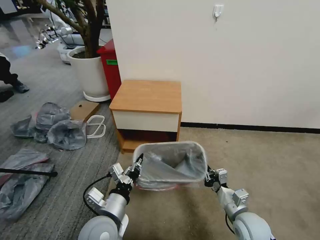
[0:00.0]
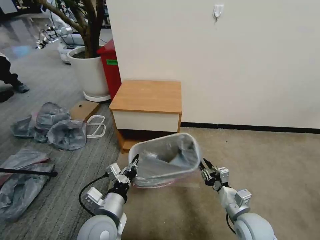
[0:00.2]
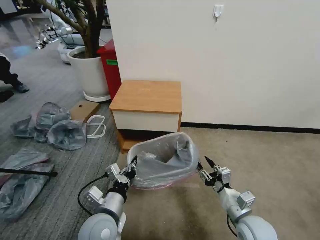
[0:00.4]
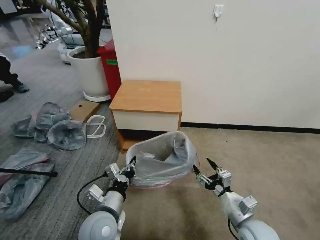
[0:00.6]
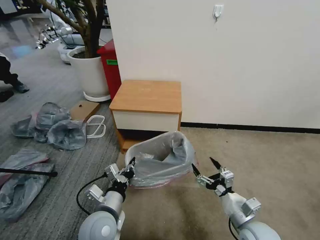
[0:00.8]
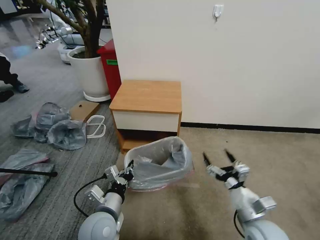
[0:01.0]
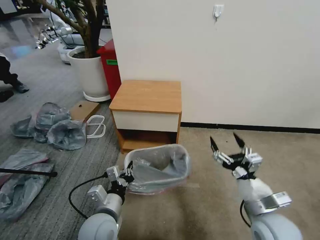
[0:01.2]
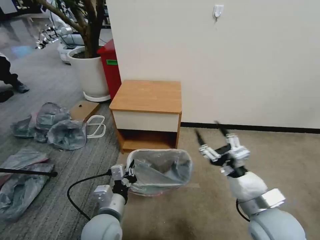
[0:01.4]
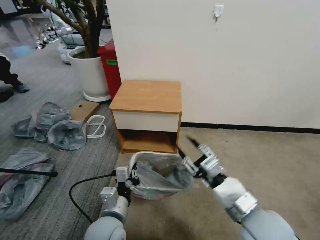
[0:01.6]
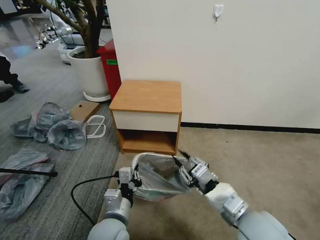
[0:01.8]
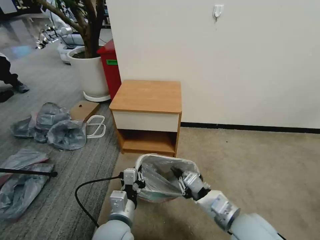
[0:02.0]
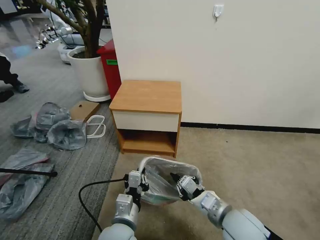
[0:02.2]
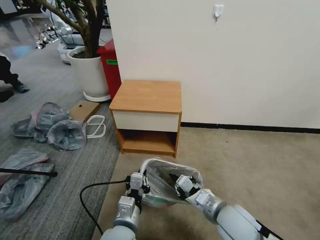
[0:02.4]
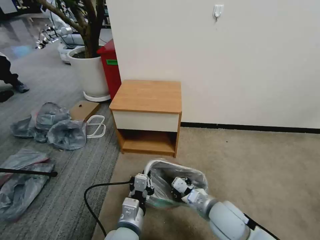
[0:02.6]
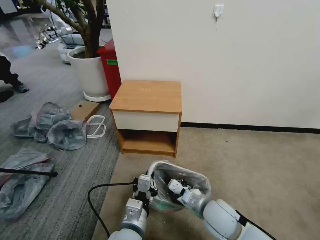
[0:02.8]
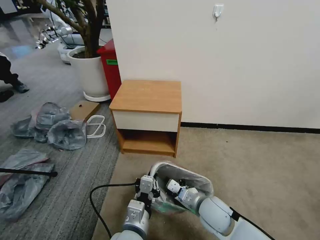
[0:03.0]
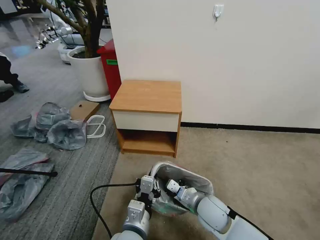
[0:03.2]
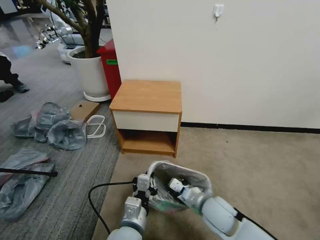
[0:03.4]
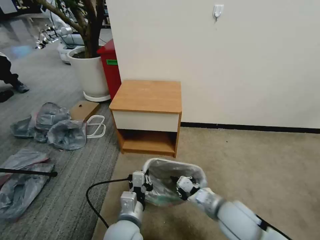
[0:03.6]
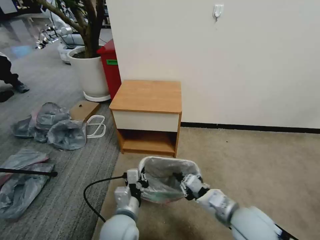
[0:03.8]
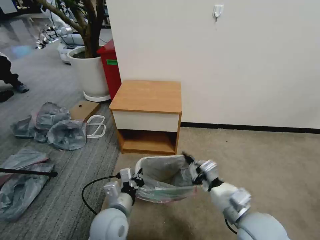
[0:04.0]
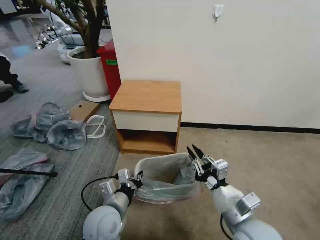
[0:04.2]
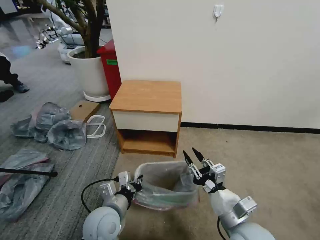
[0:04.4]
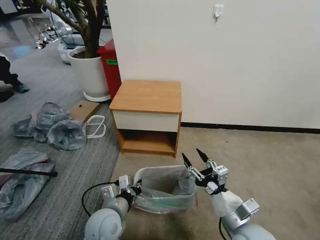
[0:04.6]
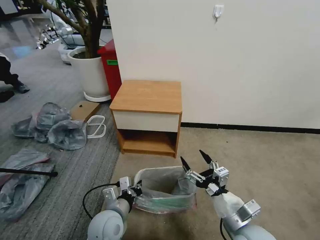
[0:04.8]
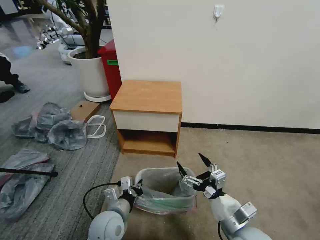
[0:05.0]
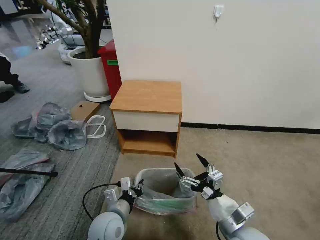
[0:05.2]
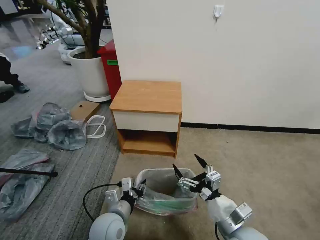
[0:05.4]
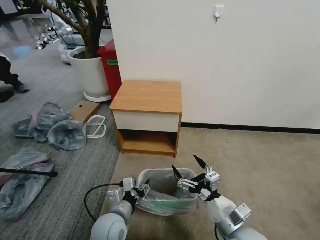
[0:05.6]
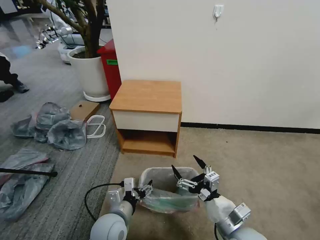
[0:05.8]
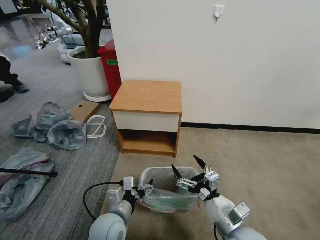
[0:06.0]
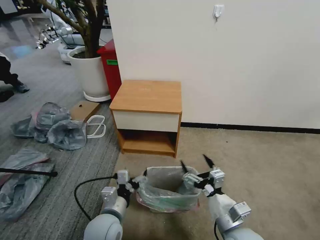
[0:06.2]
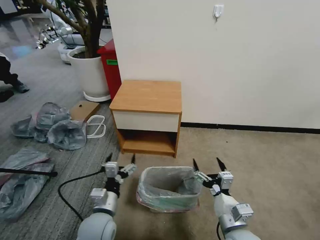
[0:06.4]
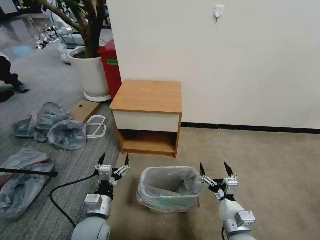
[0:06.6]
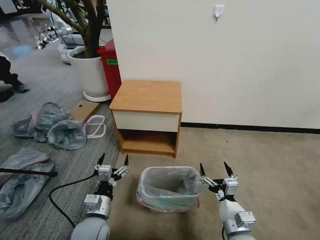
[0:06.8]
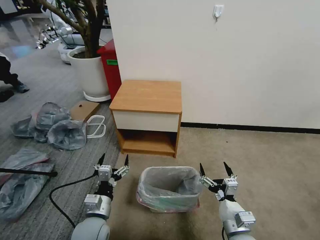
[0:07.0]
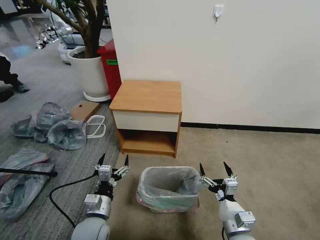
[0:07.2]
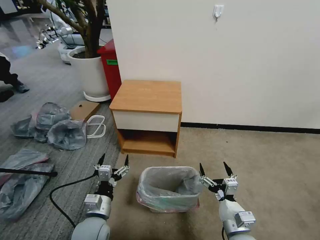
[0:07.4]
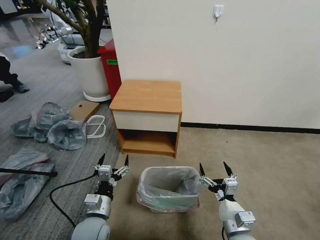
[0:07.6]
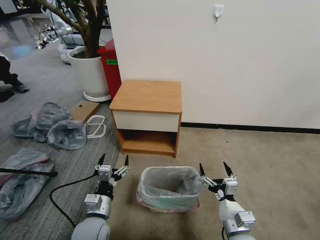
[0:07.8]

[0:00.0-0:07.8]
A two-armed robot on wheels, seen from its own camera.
Task of the whole recording: Pick up the garbage bag from the table and place it over the trash can.
0:00.0 to 0:01.6: The right gripper shifts approximately 15 cm upward, and opens.
0:01.6 to 0:03.2: The right gripper goes some 20 cm downward, forward and to the left, and closes up. Meanwhile the left gripper shifts roughly 5 cm to the right.
0:03.2 to 0:04.6: The left gripper heads to the left and forward, covering about 10 cm. Meanwhile the right gripper is displaced backward, upward and to the right by roughly 15 cm, and opens up.
0:04.6 to 0:06.2: The right gripper opens up, while the left gripper opens its fingers.
0:06.2 to 0:07.8: The left gripper shifts by approximately 5 cm. Meanwhile the right gripper moves downward, roughly 5 cm.

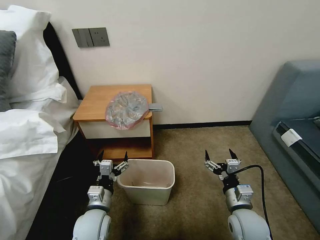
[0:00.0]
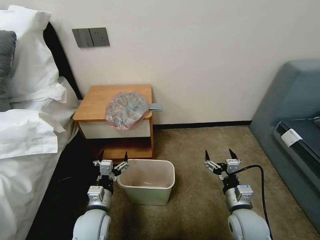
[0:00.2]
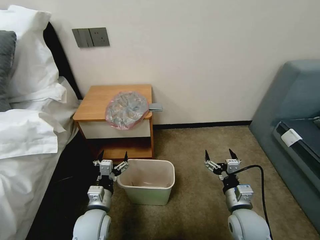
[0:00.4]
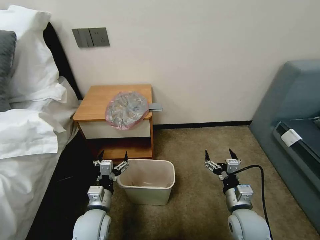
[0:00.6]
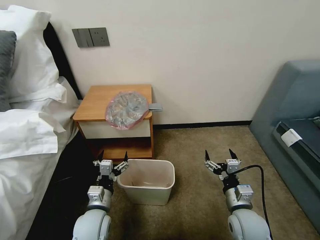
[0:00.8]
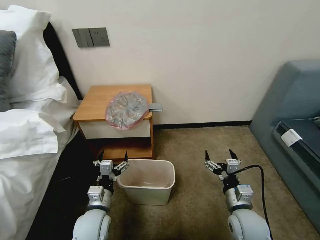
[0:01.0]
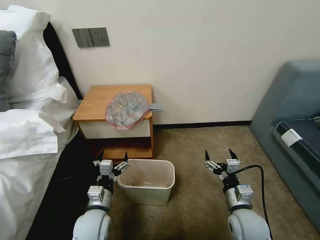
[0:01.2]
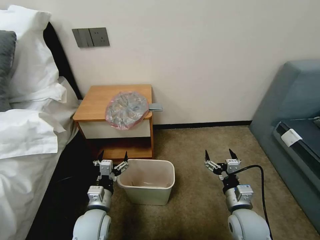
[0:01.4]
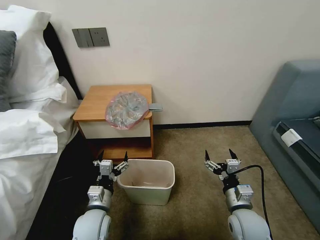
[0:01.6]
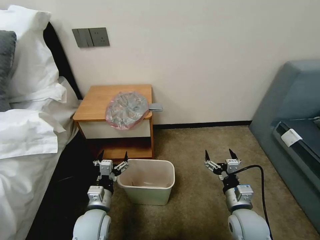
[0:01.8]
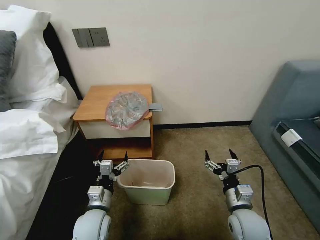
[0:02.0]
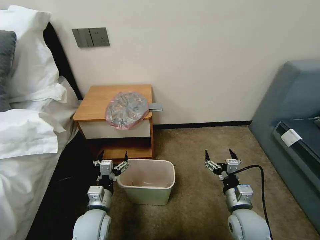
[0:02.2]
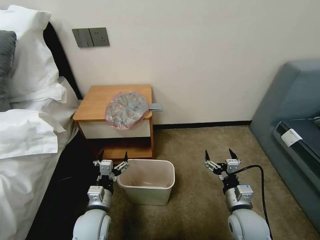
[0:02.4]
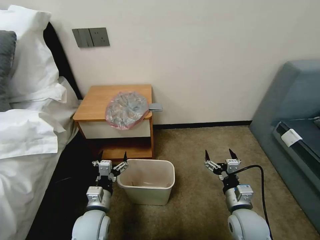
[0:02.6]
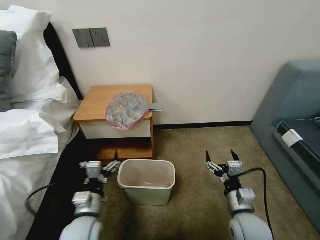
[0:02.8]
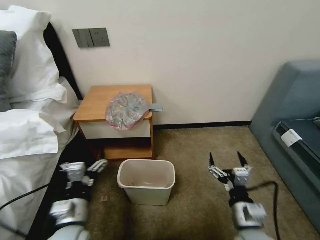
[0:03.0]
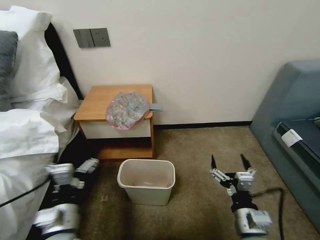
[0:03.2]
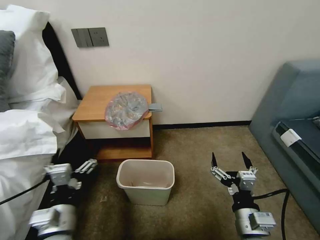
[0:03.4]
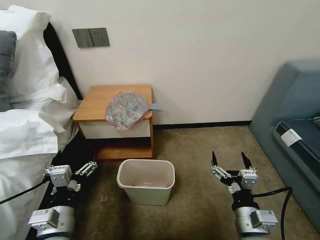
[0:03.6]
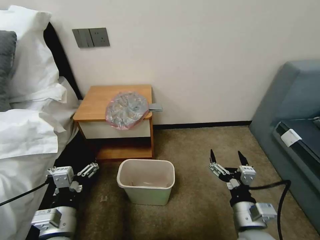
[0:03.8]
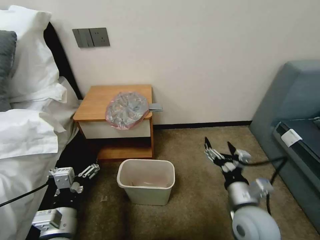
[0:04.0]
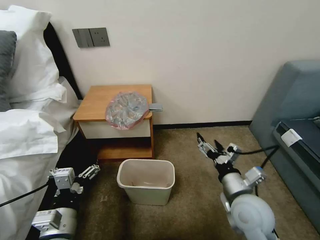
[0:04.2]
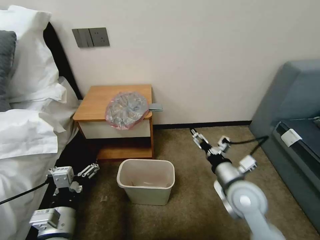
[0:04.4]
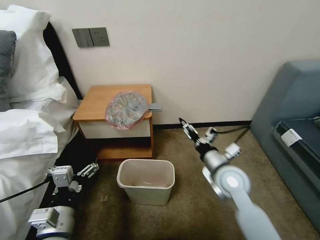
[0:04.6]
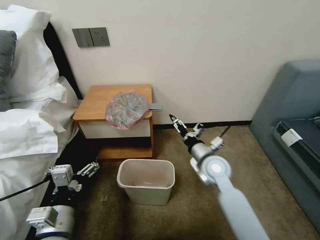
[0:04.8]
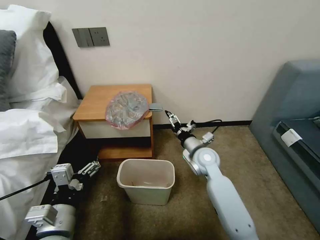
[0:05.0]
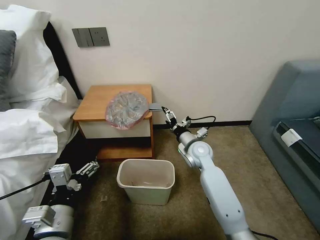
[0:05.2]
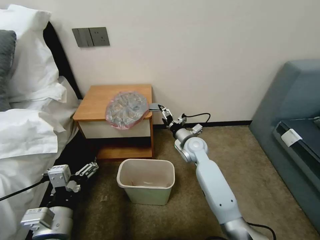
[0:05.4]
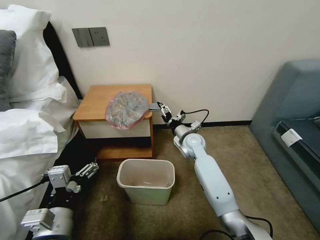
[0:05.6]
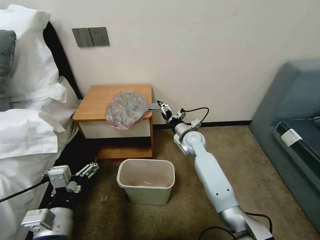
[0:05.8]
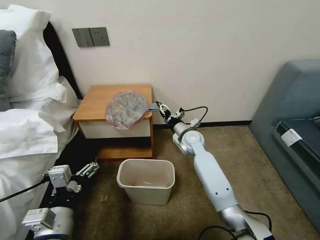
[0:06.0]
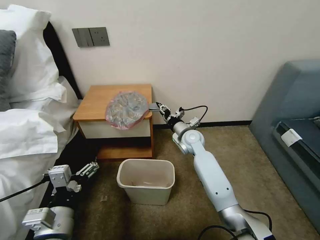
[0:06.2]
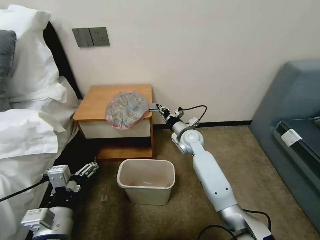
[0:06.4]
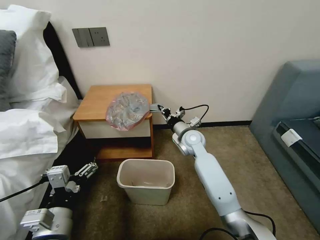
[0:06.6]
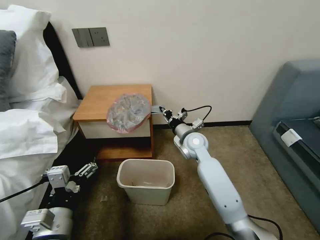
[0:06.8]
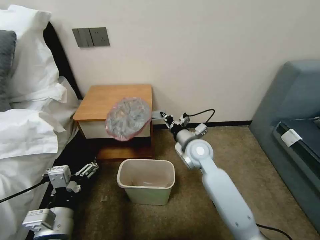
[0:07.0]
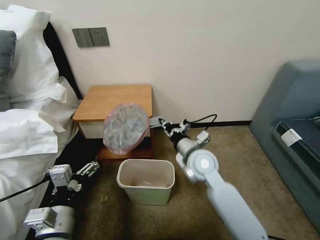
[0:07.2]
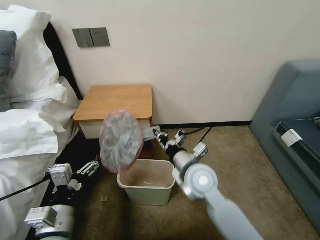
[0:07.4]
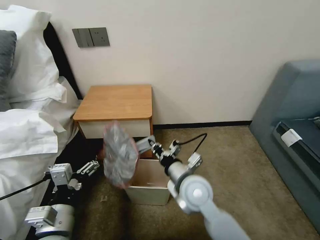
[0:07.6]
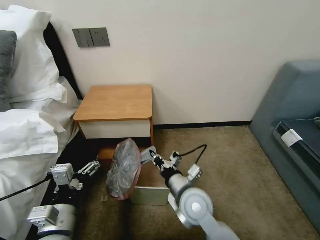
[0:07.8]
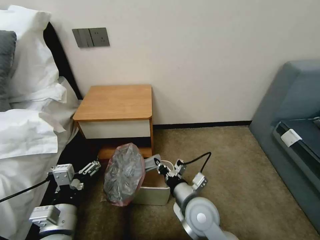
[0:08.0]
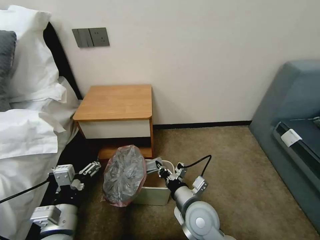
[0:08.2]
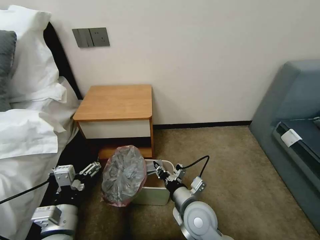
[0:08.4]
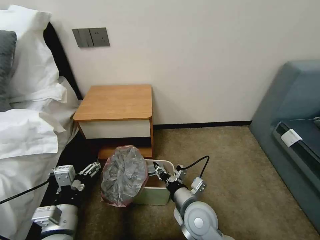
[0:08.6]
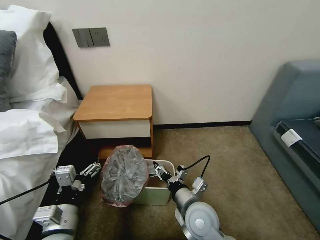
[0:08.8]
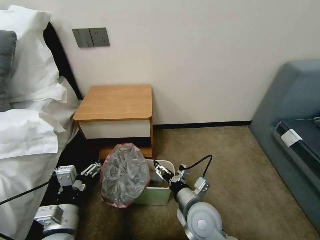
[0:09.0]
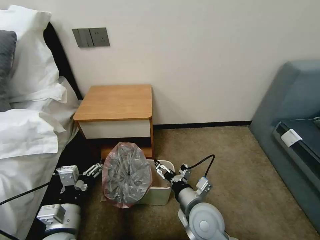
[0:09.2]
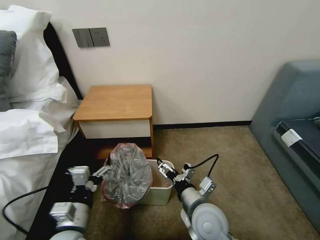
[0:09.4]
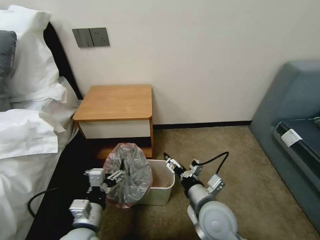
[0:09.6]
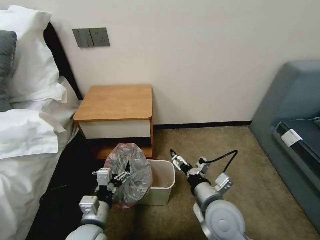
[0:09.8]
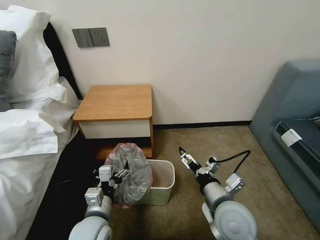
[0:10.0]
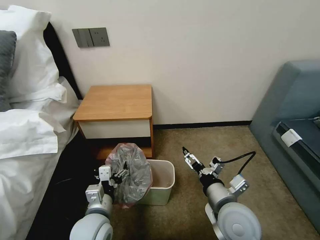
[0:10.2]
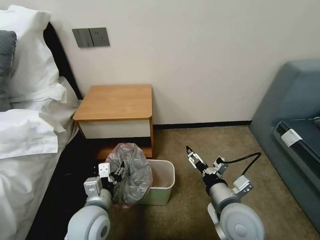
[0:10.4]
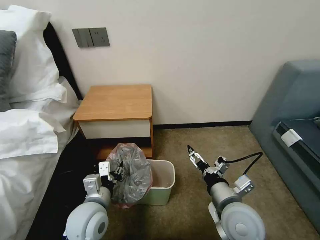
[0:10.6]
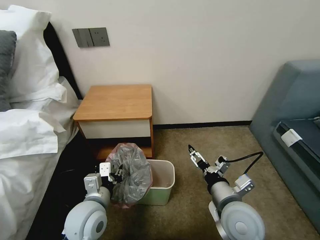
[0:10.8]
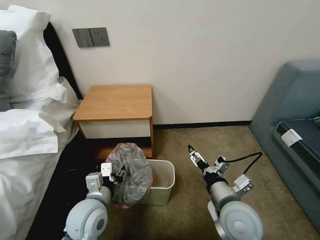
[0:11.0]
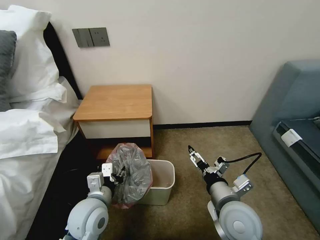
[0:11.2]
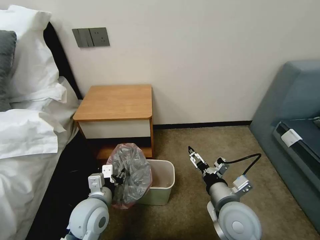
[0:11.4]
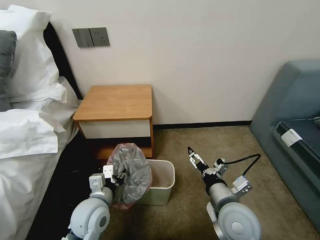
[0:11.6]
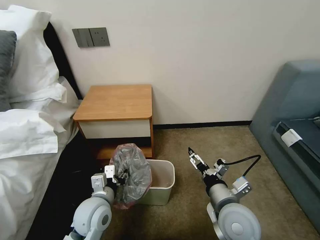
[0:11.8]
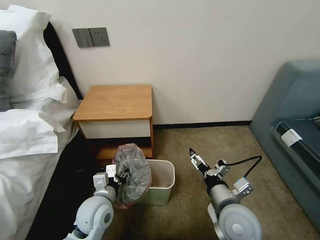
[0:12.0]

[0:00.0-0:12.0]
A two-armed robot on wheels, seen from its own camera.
Task of the whole recording: Pick up the garbage bag from the table and place it over the trash can.
0:01.6 to 0:03.0: The left gripper changes place by some 5 cm.
0:03.0 to 0:04.4: The left gripper moves upward and backward, approximately 5 cm; the right gripper is displaced upward by roughly 10 cm.
0:04.4 to 0:06.0: The right gripper heads forward, covering some 25 cm.
0:06.0 to 0:07.6: The right gripper shifts about 20 cm backward, and closes.
0:07.6 to 0:09.0: The right gripper shifts about 10 cm backward and downward, and opens.
0:09.0 to 0:10.4: The right gripper travels to the right and upward by approximately 10 cm. Meanwhile the left gripper is displaced to the right and forward by roughly 10 cm.
0:10.4 to 0:12.0: The grippers move only a little.

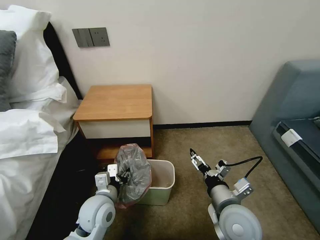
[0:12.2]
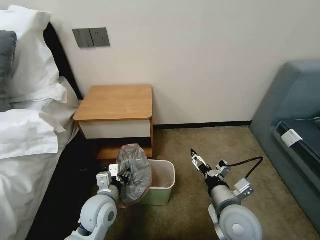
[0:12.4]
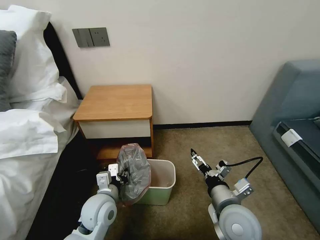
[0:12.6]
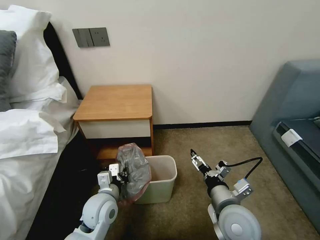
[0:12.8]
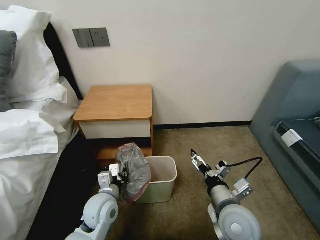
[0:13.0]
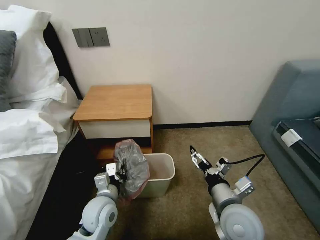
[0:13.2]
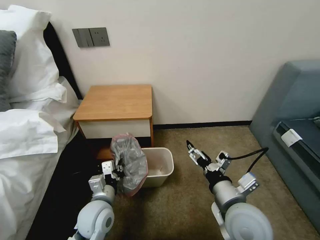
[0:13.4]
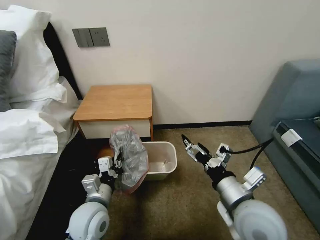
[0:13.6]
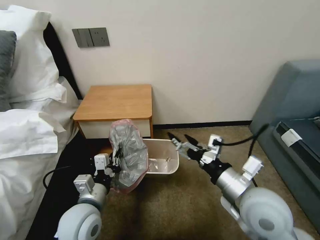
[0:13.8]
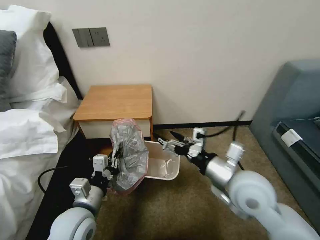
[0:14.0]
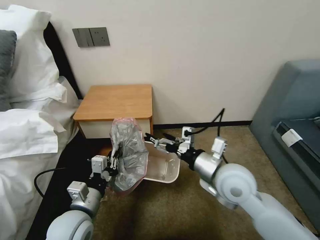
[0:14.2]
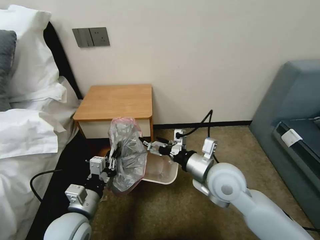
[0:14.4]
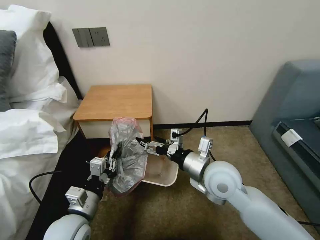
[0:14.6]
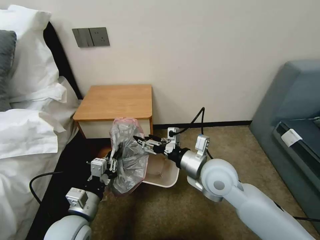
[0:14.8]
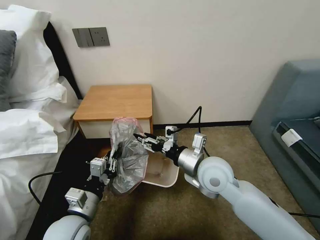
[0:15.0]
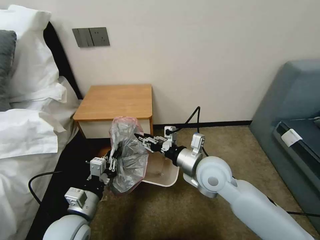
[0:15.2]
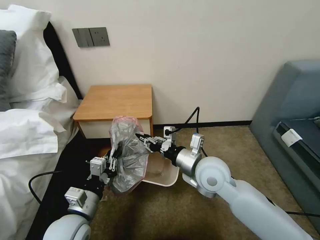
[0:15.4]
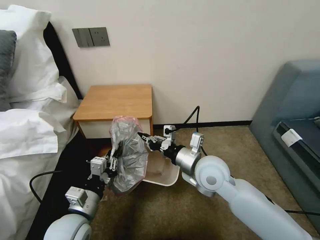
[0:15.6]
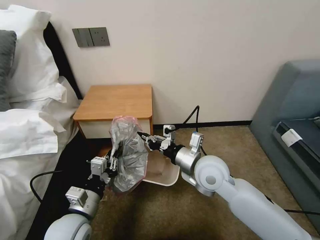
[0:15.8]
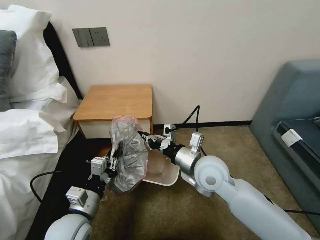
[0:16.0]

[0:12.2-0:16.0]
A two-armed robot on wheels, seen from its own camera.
Task of the whole recording: Pick up the garbage bag from the table and place it over the trash can.
0:12.2 to 0:13.4: The left gripper closes.
0:13.4 to 0:14.8: The left gripper shifts by about 5 cm. The right gripper travels forward by approximately 10 cm.
0:14.8 to 0:16.0: The right gripper closes its fingers.
